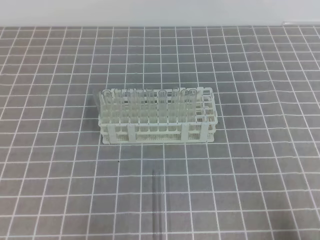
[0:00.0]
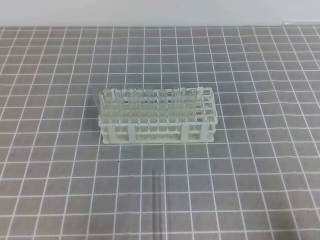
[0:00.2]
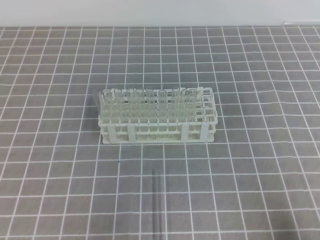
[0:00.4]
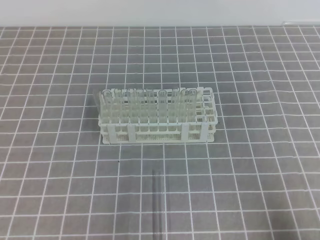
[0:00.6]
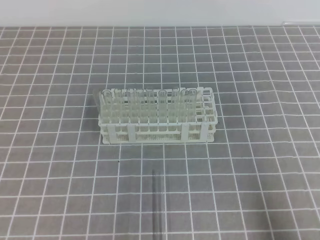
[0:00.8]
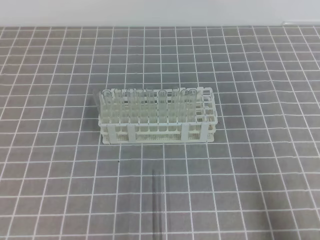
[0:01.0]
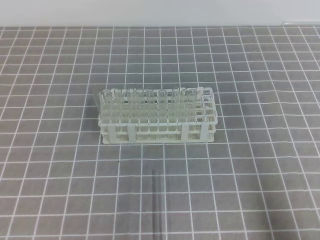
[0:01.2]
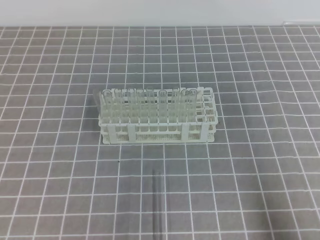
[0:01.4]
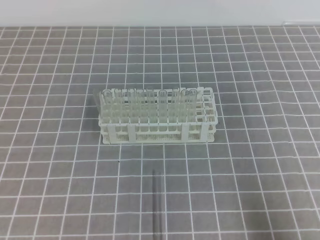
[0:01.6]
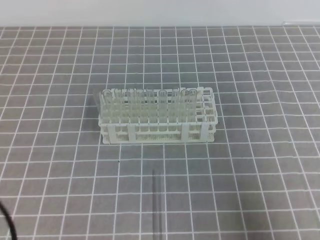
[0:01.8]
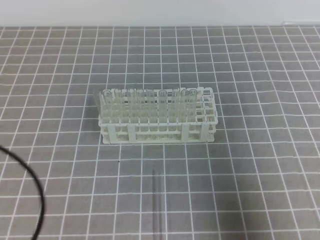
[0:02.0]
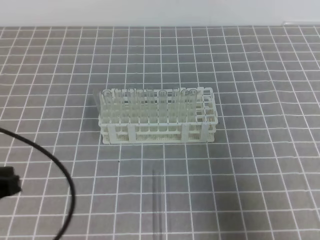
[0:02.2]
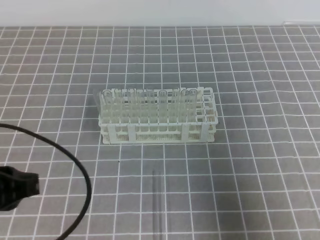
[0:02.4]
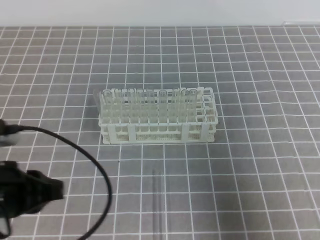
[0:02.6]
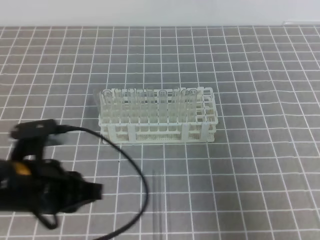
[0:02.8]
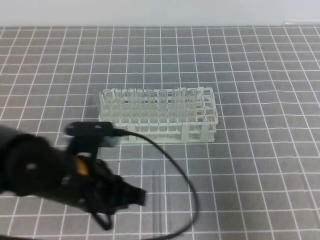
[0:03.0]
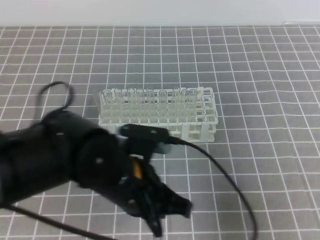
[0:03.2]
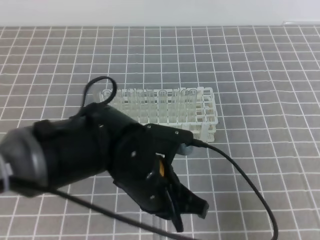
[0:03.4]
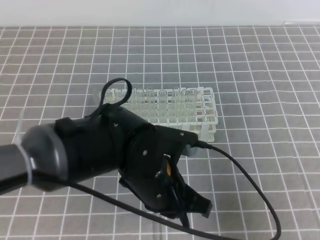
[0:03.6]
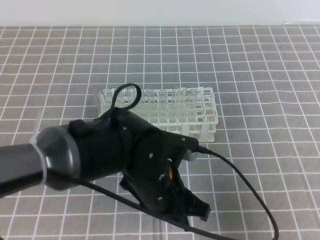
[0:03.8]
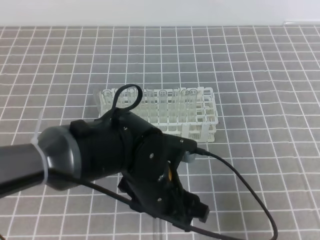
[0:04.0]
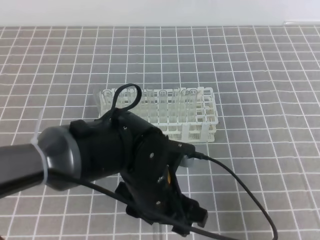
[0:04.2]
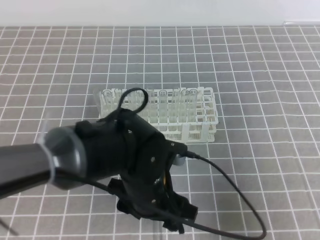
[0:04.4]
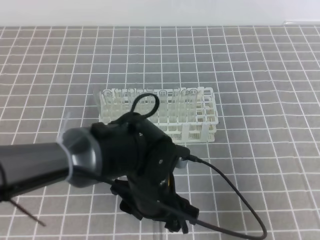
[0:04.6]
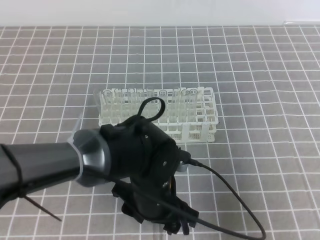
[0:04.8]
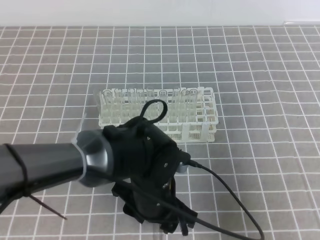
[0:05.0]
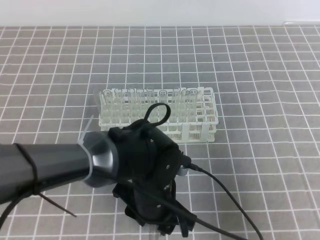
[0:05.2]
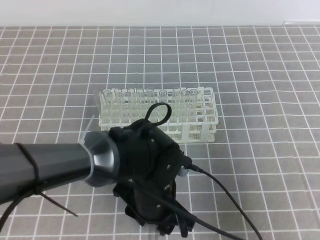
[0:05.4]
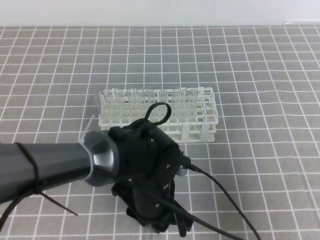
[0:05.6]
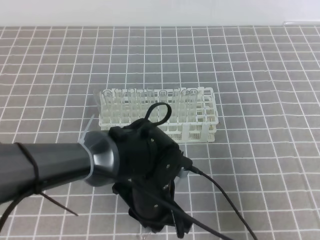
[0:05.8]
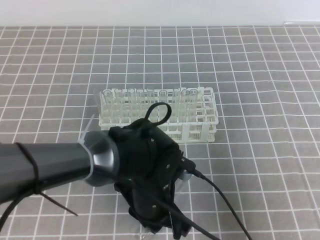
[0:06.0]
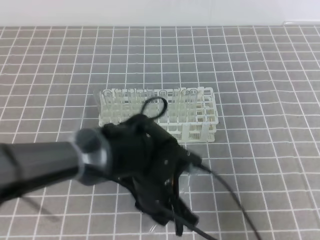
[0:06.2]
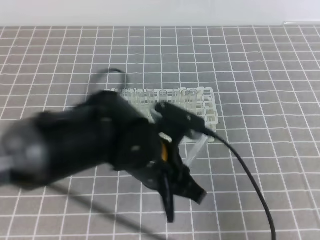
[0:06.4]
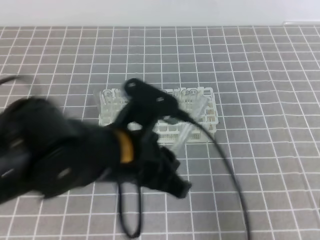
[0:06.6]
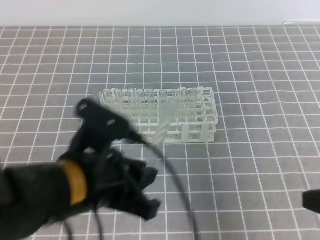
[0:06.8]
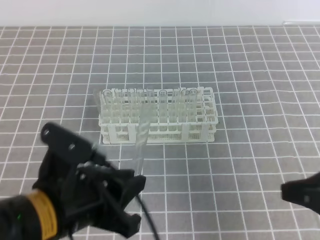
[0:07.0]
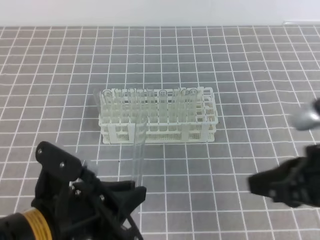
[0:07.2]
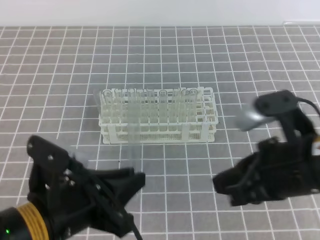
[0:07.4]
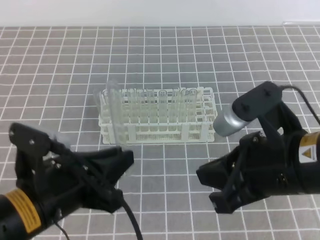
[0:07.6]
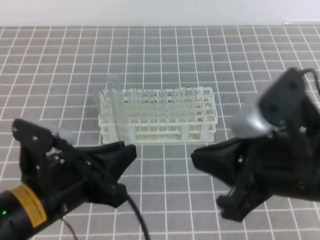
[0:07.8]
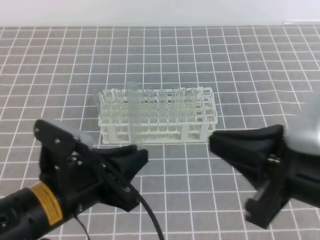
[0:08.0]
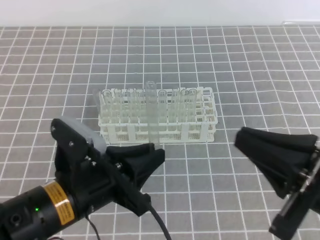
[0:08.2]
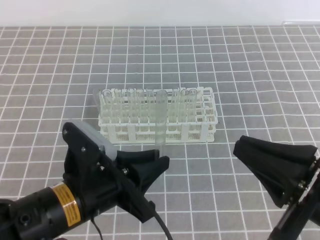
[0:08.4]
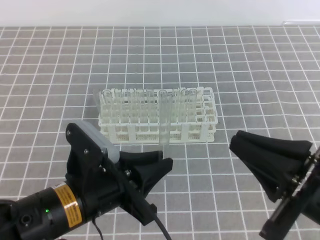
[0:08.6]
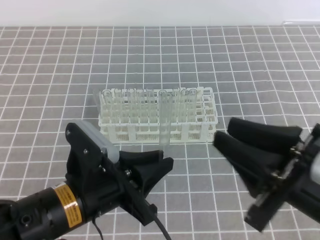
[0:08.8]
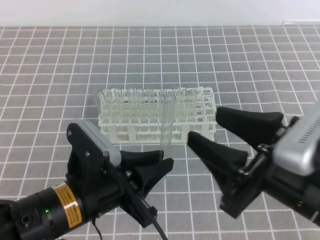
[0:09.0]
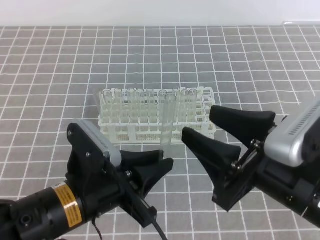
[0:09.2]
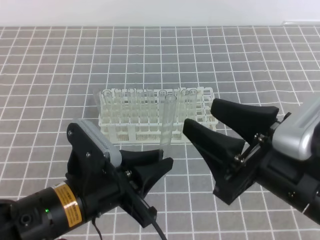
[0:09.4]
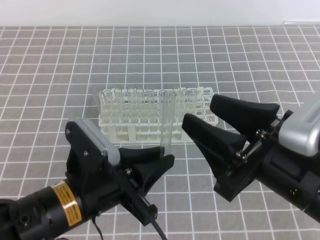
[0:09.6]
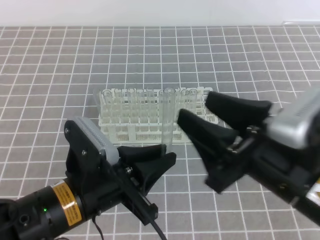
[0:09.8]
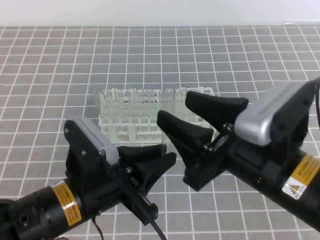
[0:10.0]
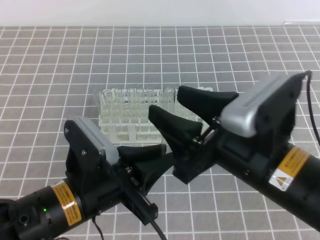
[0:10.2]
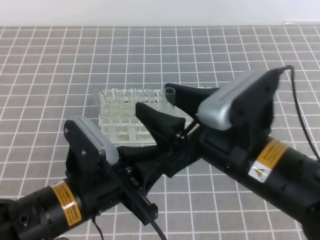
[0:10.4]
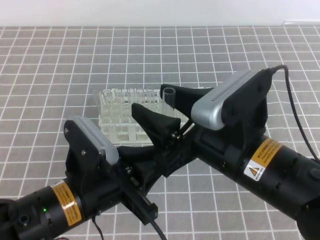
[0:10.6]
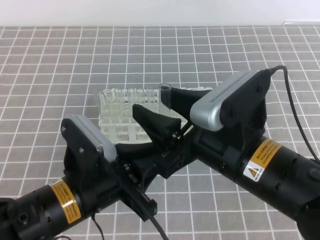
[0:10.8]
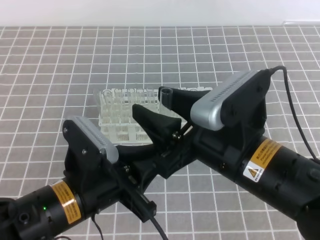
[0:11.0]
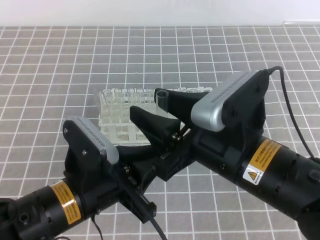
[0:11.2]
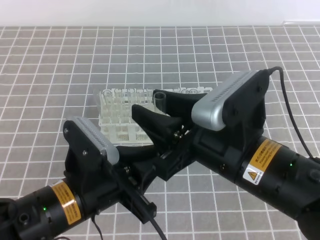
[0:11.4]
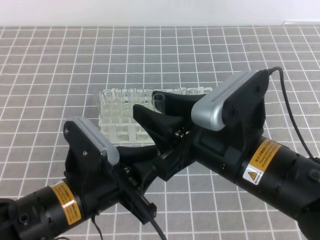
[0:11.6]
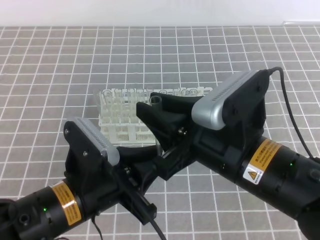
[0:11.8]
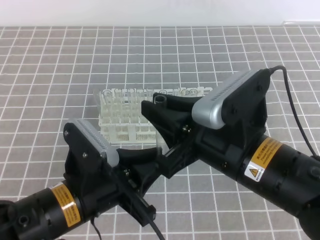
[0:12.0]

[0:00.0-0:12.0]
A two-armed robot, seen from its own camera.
0:01.6 to 0:03.0: The left gripper shifts approximately 20 cm to the right and forward. Meanwhile the right gripper goes approximately 5 cm forward.
0:03.0 to 0:04.4: The left gripper heads to the right, covering some 10 cm, and opens.
0:04.4 to 0:06.0: The left gripper closes up.
0:06.0 to 0:07.6: The left gripper is displaced to the left, upward and backward by roughly 15 cm. The right gripper goes about 15 cm to the left and upward.
0:07.6 to 0:09.0: The right gripper opens its fingers.
0:09.0 to 0:10.4: The right gripper heads to the left, covering approximately 5 cm.
0:10.4 to 0:12.0: The right gripper closes its fingers.

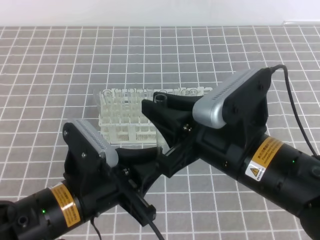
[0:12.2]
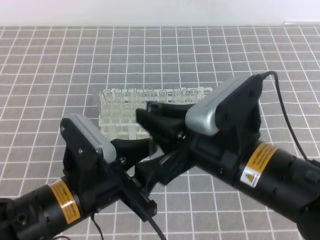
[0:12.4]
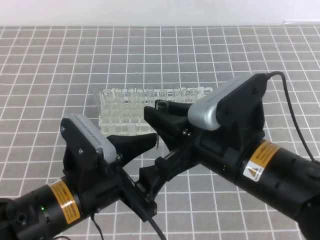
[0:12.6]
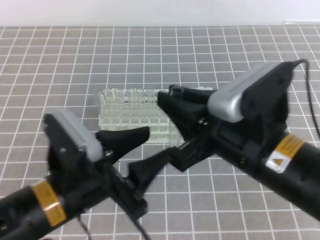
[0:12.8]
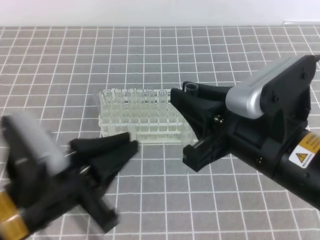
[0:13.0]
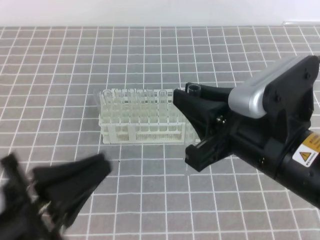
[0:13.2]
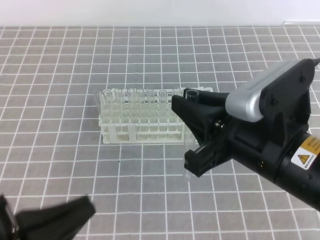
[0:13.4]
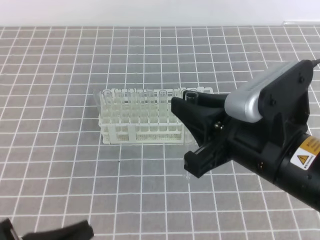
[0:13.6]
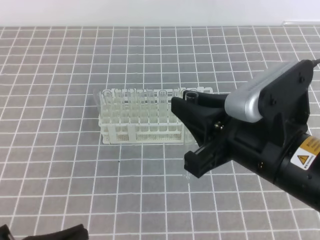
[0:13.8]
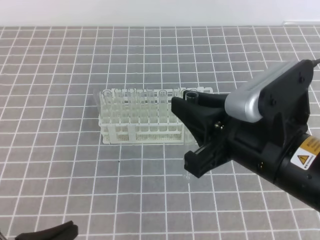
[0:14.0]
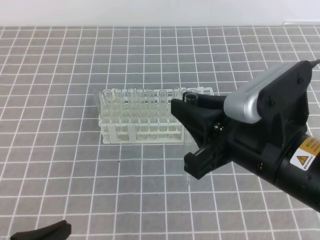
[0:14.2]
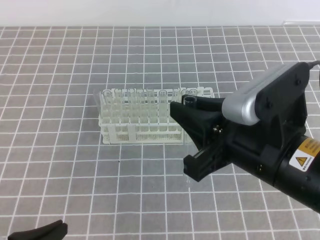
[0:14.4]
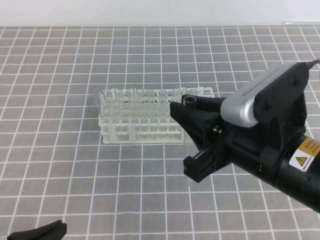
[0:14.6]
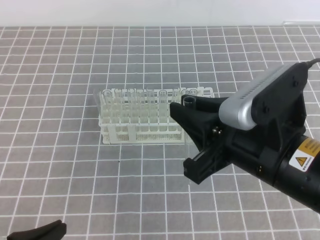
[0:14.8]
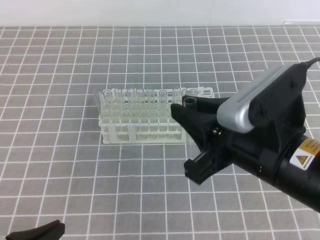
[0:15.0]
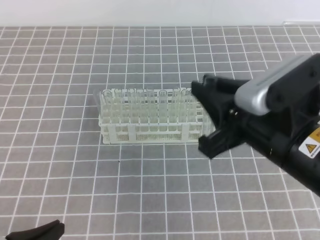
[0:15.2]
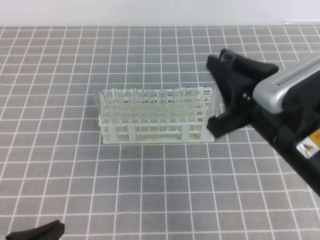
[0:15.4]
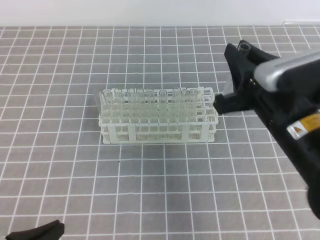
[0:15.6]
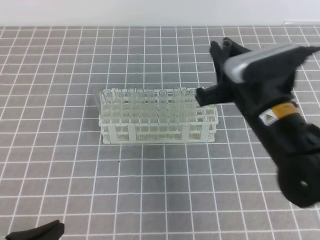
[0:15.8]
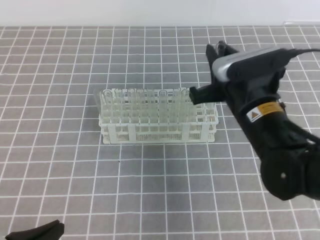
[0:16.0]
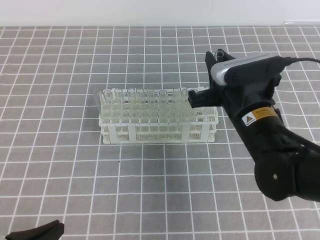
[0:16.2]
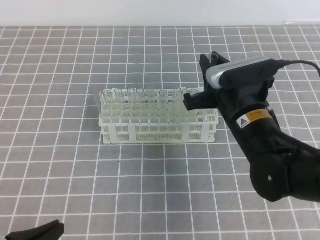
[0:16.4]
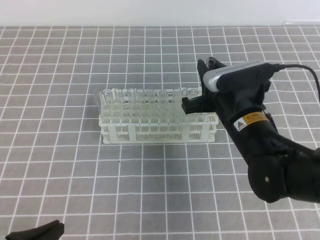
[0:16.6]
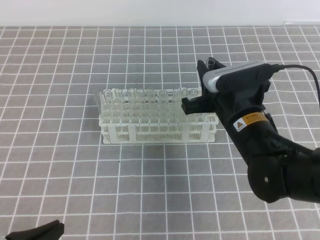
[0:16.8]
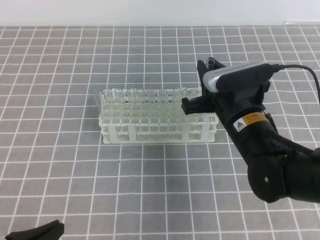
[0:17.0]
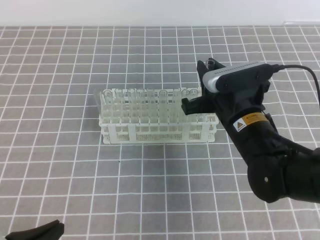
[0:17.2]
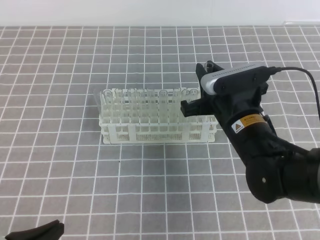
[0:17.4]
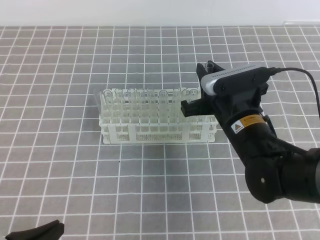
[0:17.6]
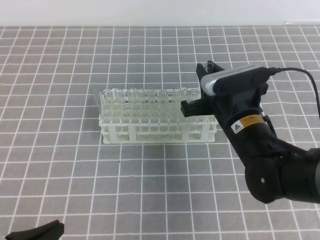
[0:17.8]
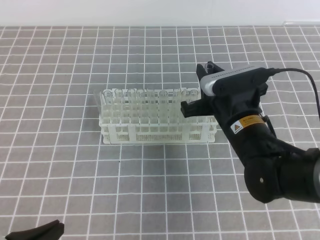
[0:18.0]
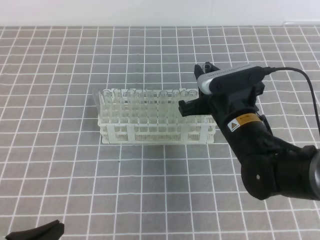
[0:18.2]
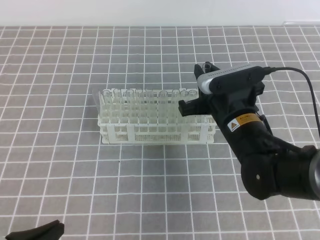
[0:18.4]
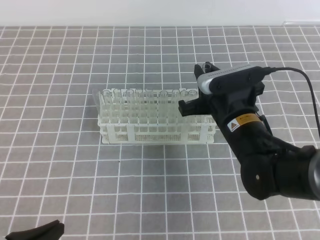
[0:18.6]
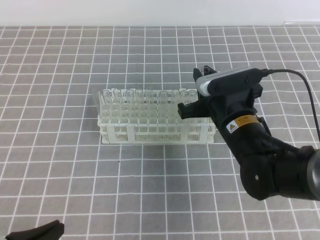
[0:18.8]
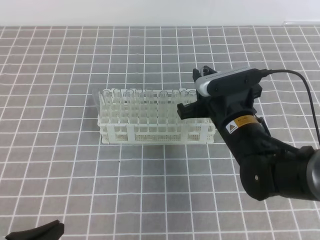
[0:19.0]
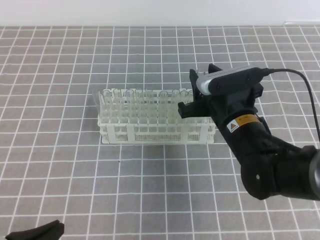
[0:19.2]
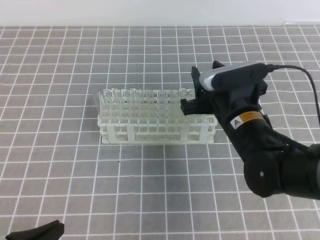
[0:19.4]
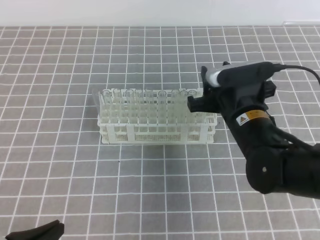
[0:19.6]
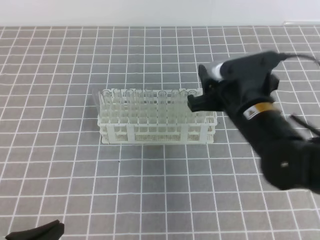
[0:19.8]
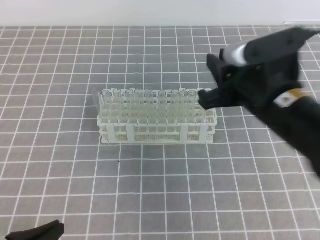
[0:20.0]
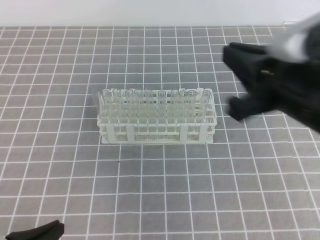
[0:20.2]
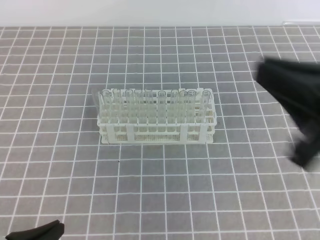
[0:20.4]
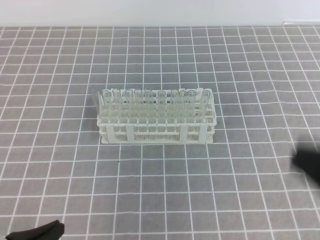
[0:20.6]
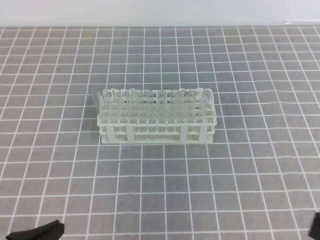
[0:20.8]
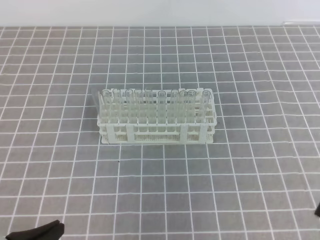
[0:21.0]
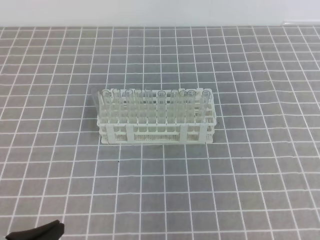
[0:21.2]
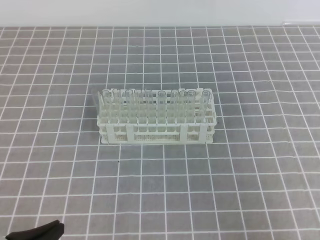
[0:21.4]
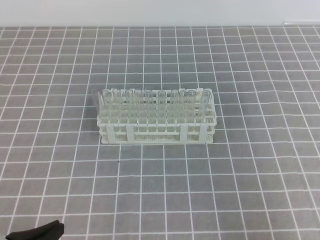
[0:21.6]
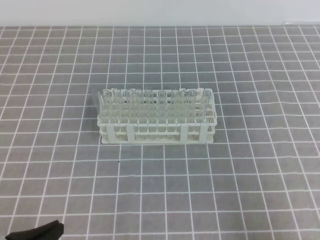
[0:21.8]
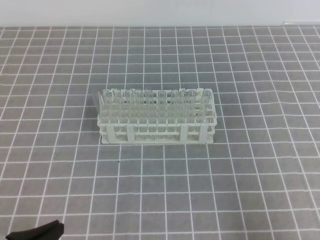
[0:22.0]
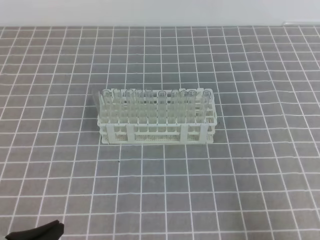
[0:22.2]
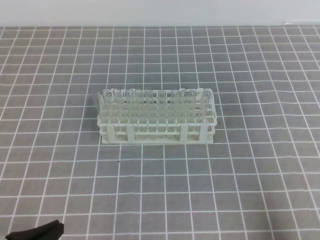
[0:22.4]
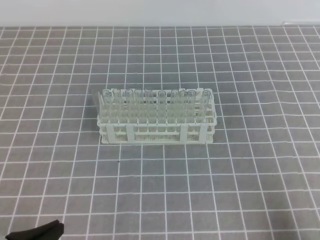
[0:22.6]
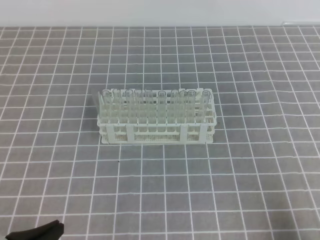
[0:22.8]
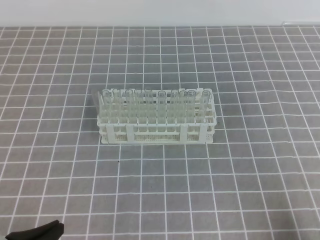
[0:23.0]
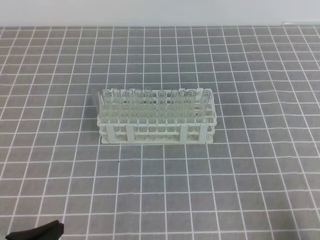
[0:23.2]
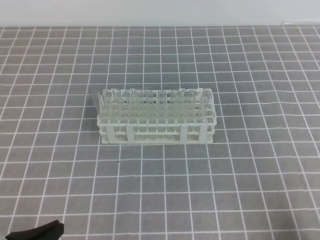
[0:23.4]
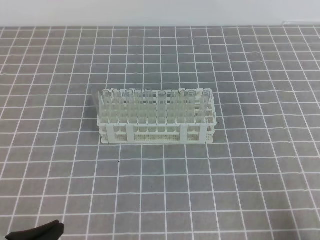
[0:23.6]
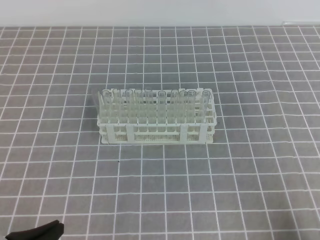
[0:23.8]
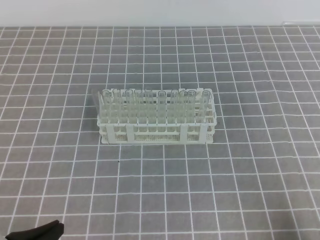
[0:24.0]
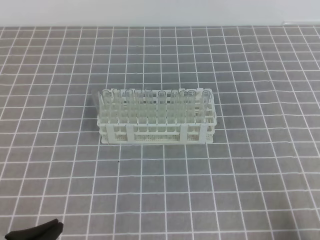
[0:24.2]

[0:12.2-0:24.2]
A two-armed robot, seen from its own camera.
0:12.2 to 0:13.8: The left gripper shifts about 15 cm to the left and backward, and opens and closes again.
0:13.8 to 0:15.2: The grippers move only a little.
0:15.2 to 0:16.6: The right gripper shifts roughly 15 cm forward and downward.
0:16.6 to 0:18.2: The grippers make only small movements.
0:18.2 to 0:19.8: The right gripper opens its fingers.
0:19.8 to 0:21.2: The right gripper goes about 25 cm backward and to the right, and closes its fingers.
0:21.2 to 0:22.6: The right gripper heads downward, covering some 10 cm.
